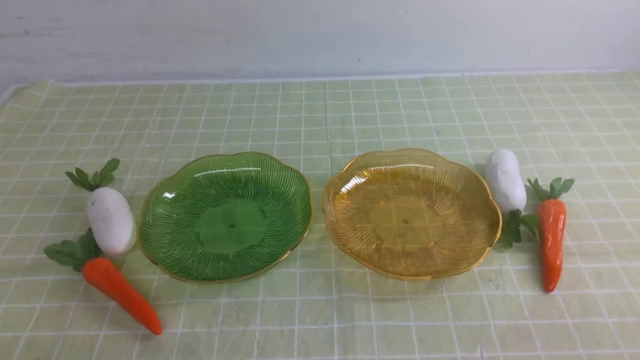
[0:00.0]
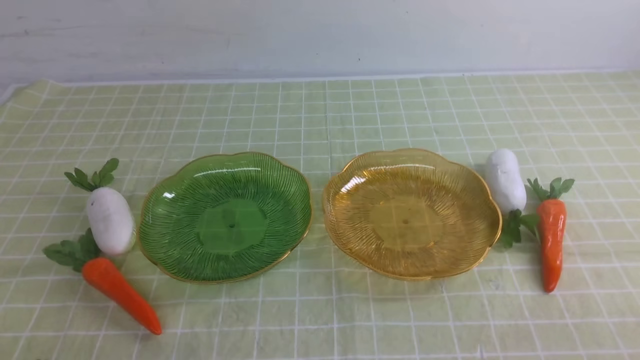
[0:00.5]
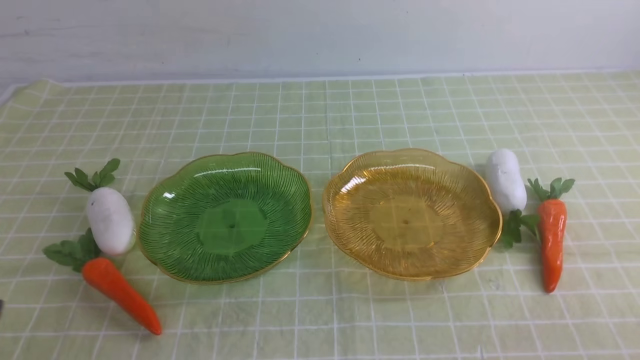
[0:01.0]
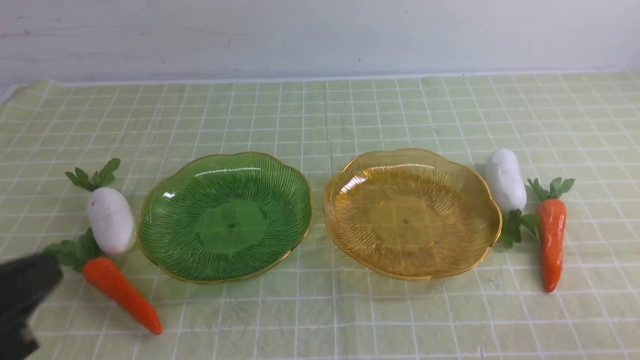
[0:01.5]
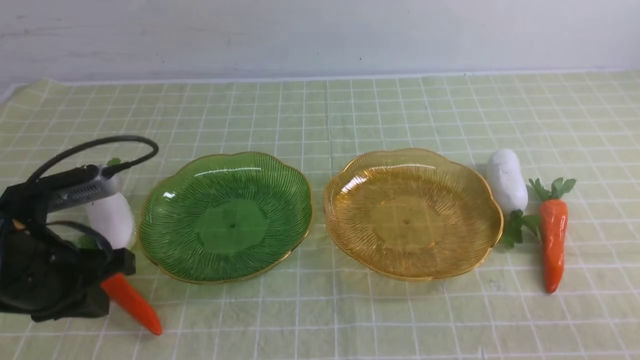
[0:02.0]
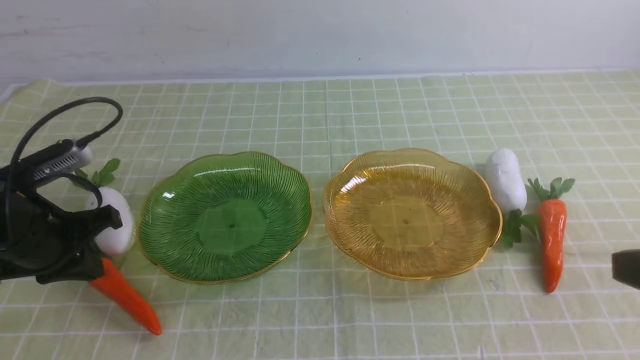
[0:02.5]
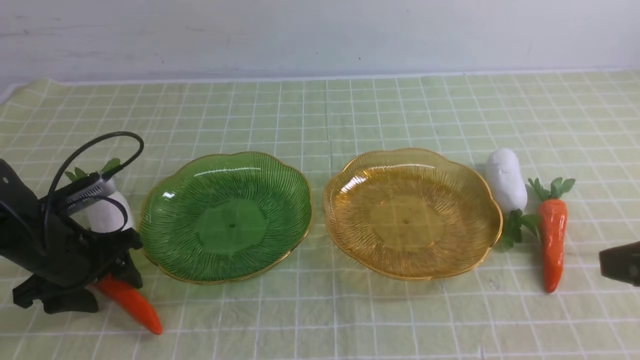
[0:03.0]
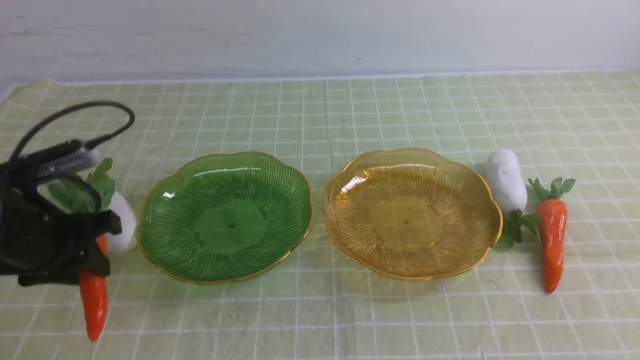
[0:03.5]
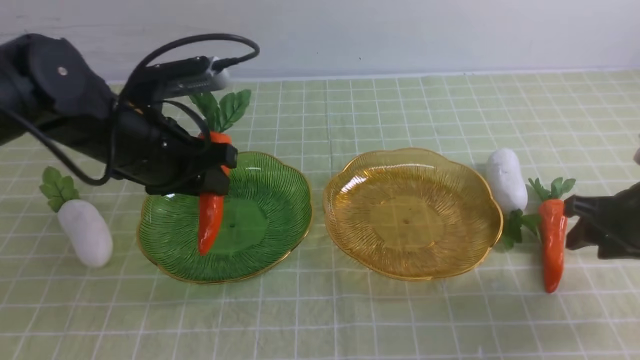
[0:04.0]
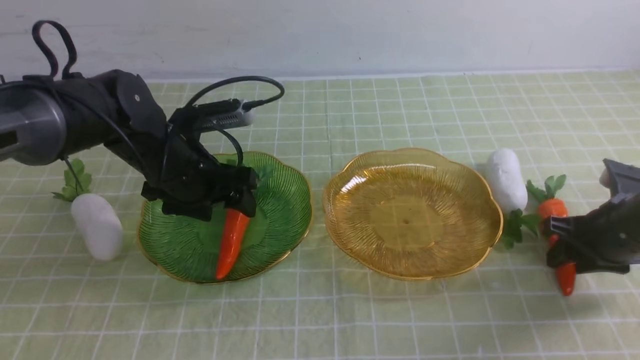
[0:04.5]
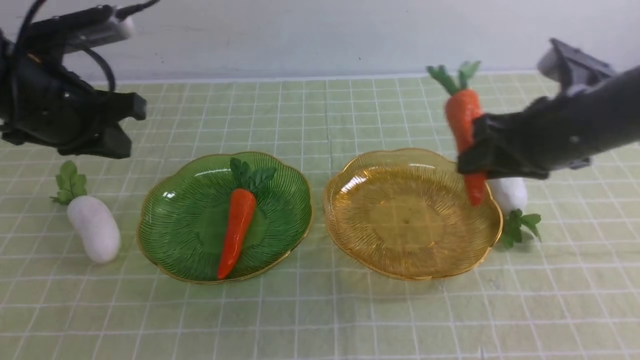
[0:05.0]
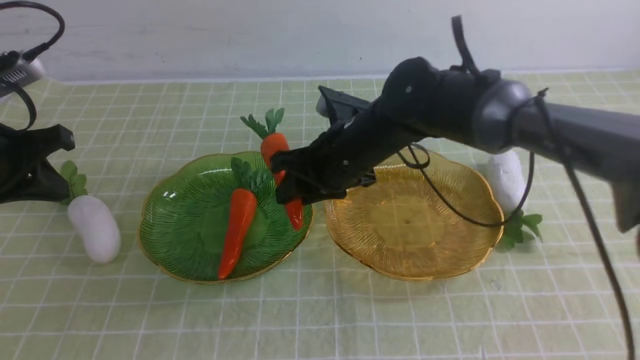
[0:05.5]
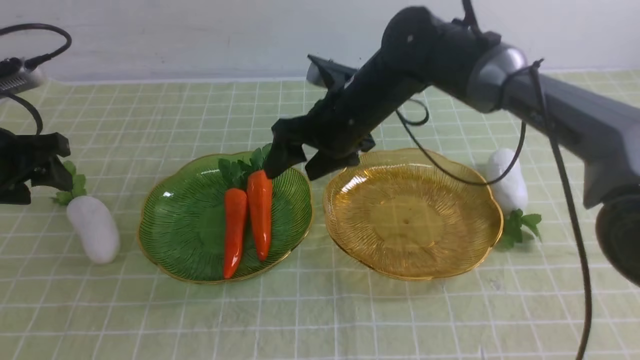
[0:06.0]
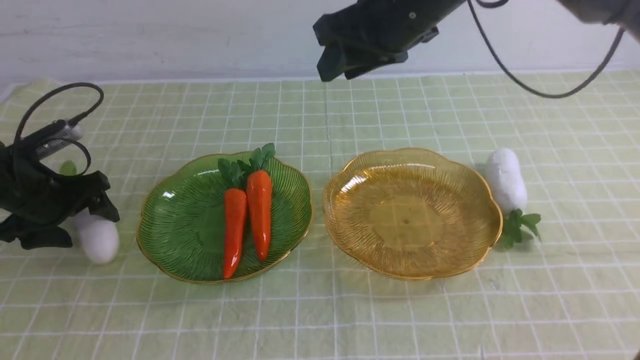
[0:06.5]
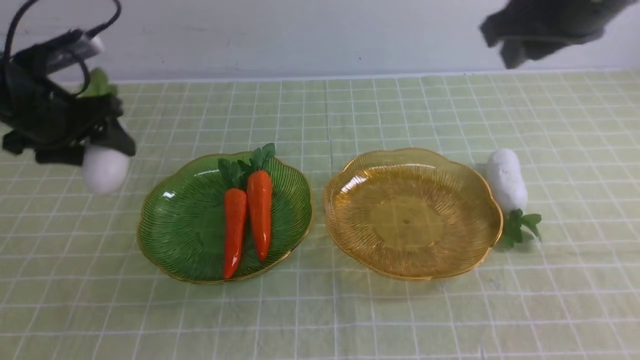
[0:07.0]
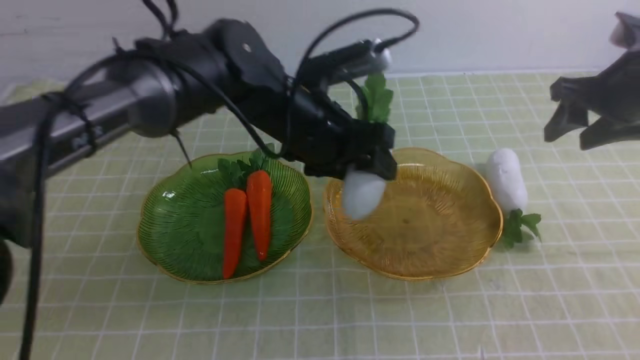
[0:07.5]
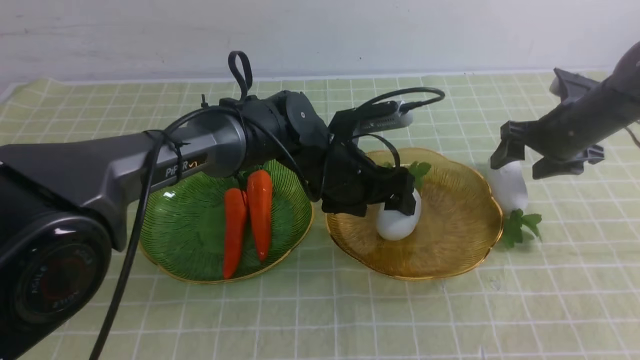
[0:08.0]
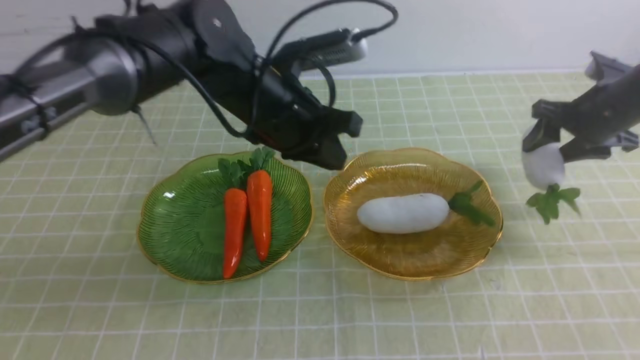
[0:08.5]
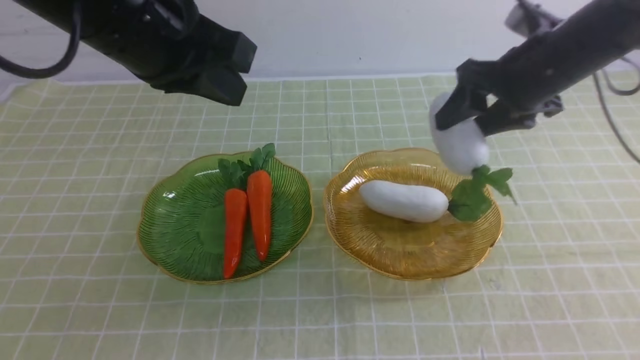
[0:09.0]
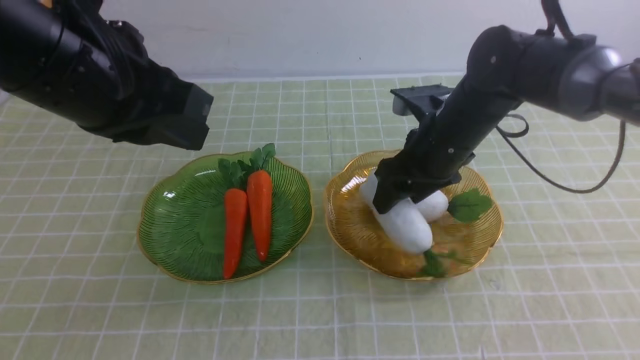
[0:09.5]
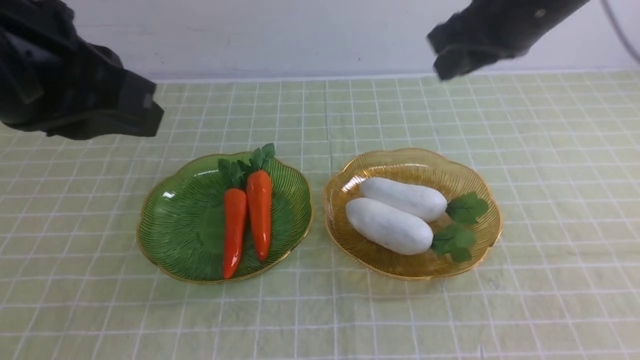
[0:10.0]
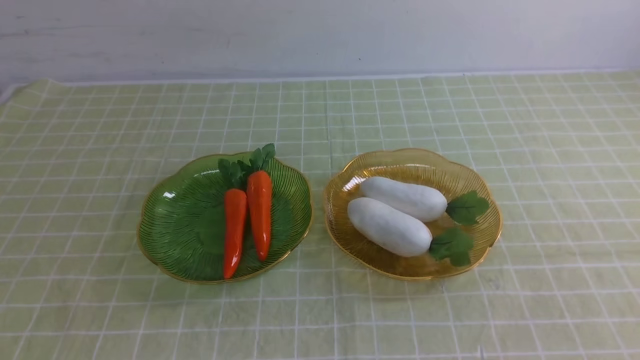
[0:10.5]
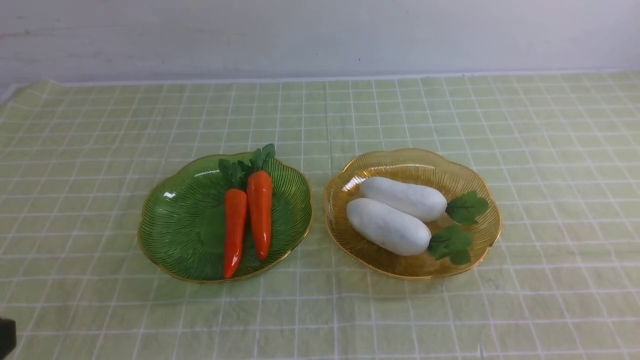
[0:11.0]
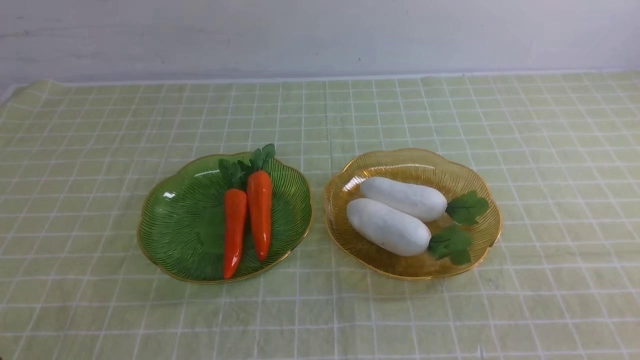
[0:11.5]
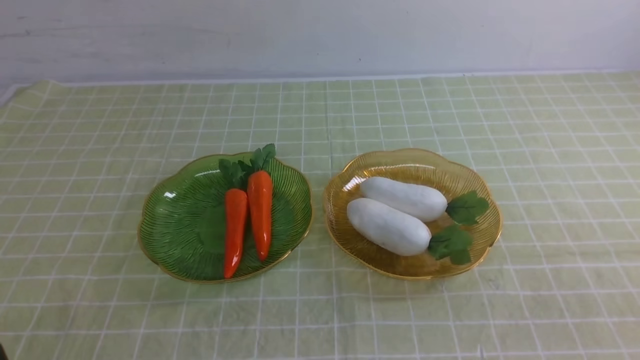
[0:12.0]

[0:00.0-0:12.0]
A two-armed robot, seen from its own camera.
Step, 0:00.0 to 0:04.5: use the left arm to grab a carrot and put it into the left plate.
Step, 0:05.0 to 0:06.0: use the right arm to grab a carrot and put it into the left plate.
Step, 0:06.5 to 0:08.5: use the left arm to grab a radish and put it into the right plate.
Step, 0:09.0 to 0:10.5: use the right arm to grab a radish and put it into the right plate.
0:00.0 to 0:02.0: The left gripper travels forward and upward by about 20 cm.
0:02.0 to 0:04.0: The right gripper shifts some 25 cm forward, and opens; the left gripper is displaced forward and to the right by some 15 cm, and opens its fingers.
0:04.0 to 0:06.0: The left gripper goes some 15 cm to the left, and opens its fingers; the right gripper shifts about 30 cm to the left and forward.
0:06.0 to 0:08.0: The grippers both shift to the right by approximately 30 cm. The right gripper closes, then reopens.
0:08.0 to 0:10.0: The right gripper swings up and down, roughly 25 cm each way, with 2 reversals, and closes its fingers; the left gripper moves upward, backward and to the left, roughly 35 cm, and closes.
0:10.0 to 0:12.0: The left gripper travels downward and backward by about 25 cm; the right gripper goes roughly 35 cm backward and to the right.

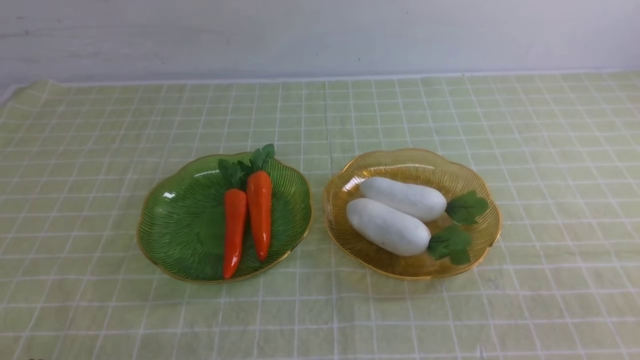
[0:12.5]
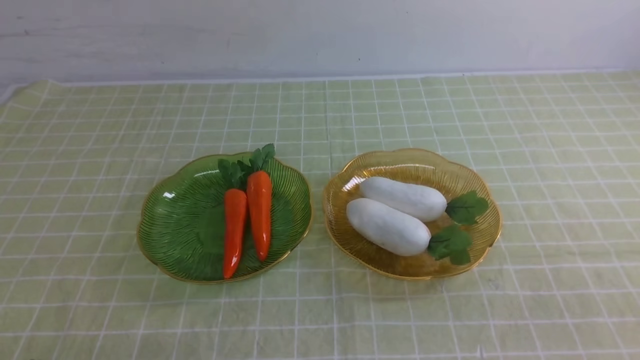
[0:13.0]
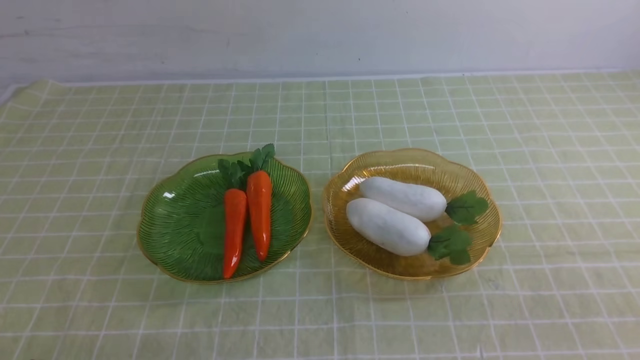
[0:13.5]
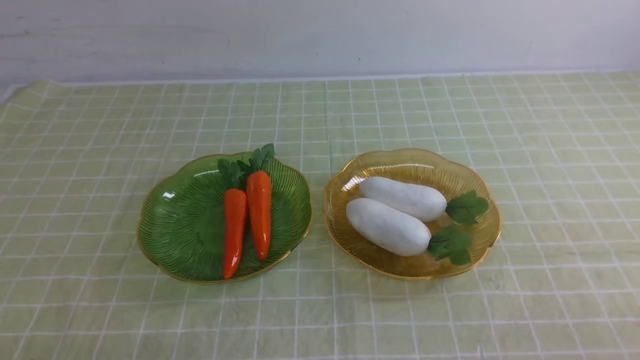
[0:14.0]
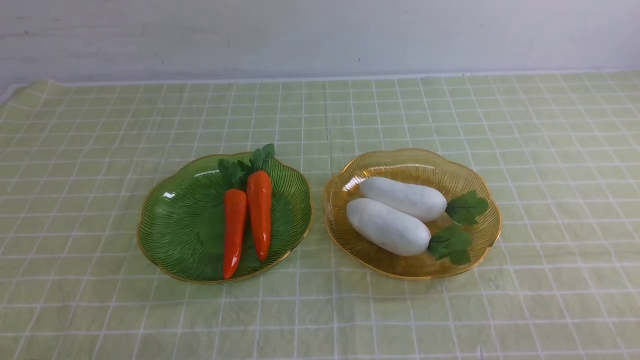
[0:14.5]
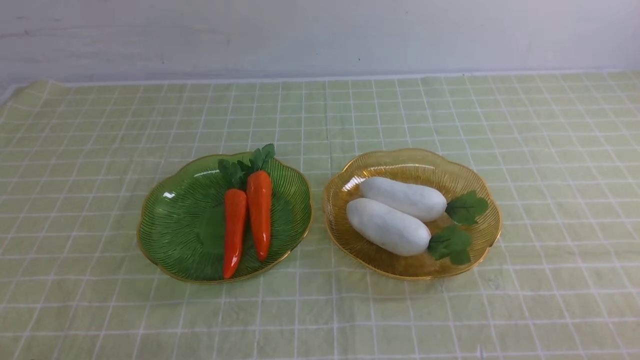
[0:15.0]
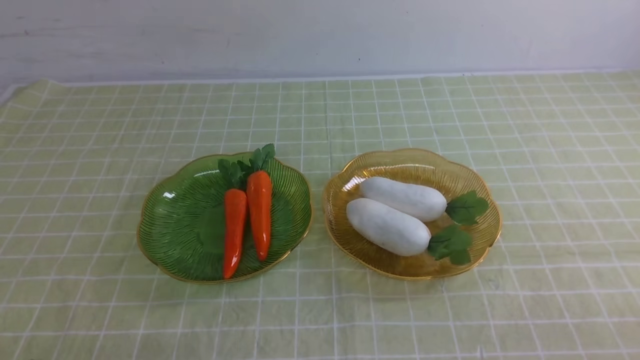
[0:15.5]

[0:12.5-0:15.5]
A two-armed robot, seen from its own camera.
0:14.0 to 0:15.5: The two grippers keep their place.
